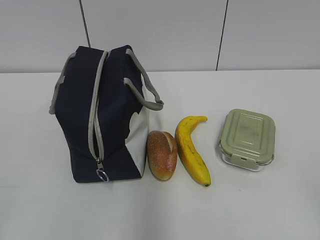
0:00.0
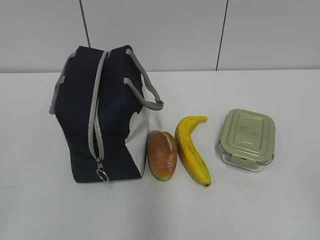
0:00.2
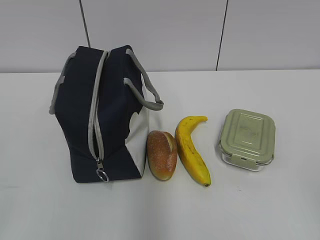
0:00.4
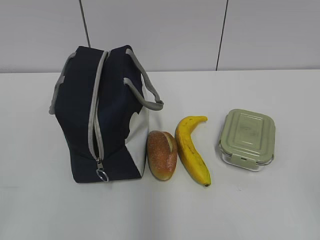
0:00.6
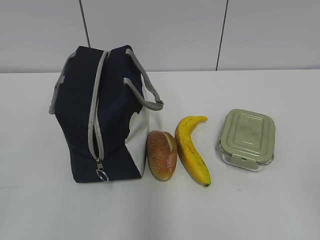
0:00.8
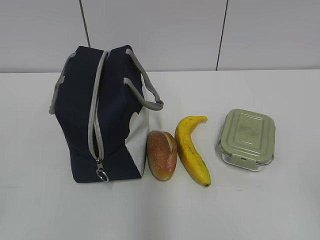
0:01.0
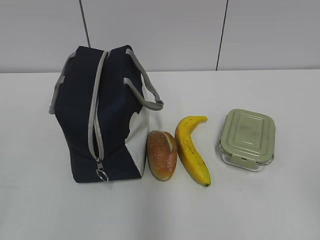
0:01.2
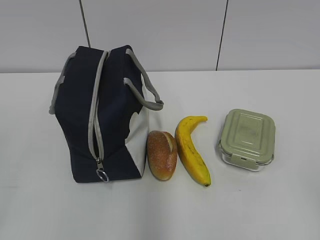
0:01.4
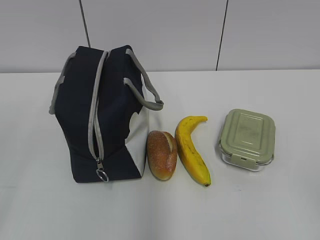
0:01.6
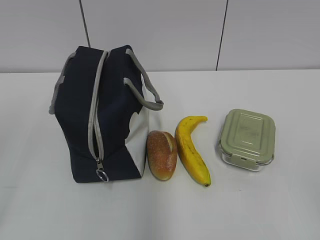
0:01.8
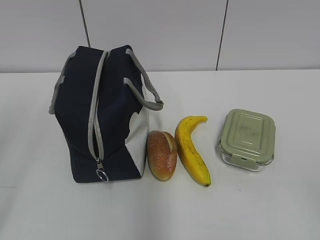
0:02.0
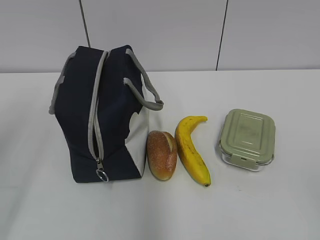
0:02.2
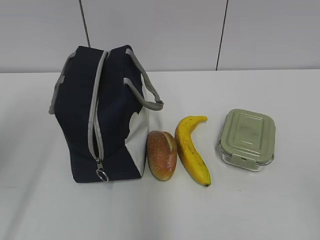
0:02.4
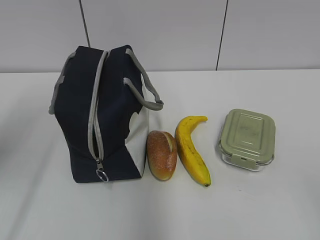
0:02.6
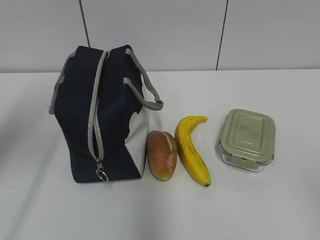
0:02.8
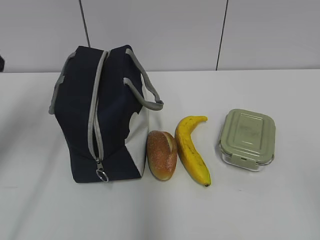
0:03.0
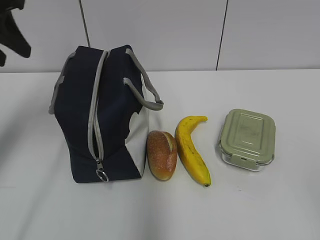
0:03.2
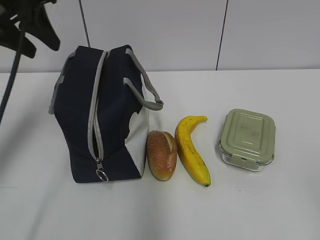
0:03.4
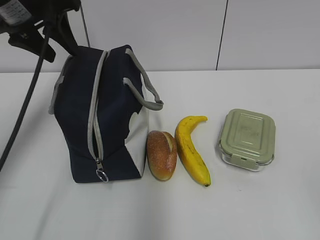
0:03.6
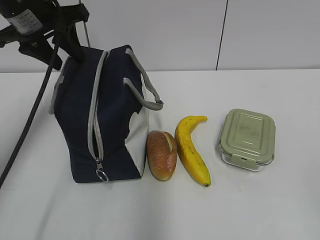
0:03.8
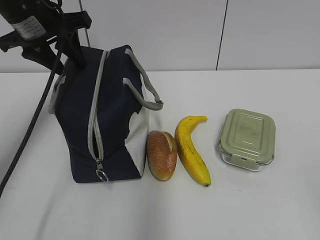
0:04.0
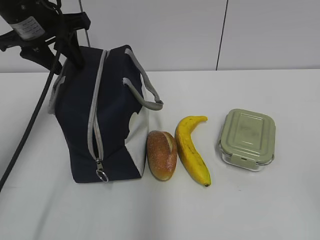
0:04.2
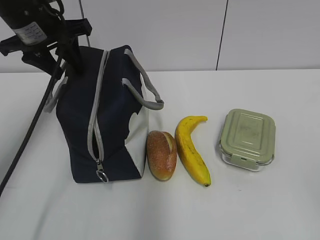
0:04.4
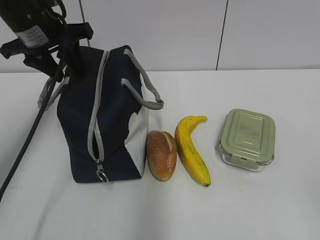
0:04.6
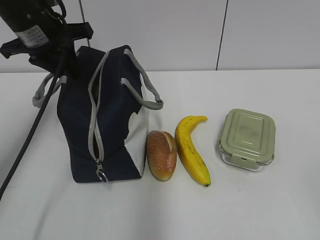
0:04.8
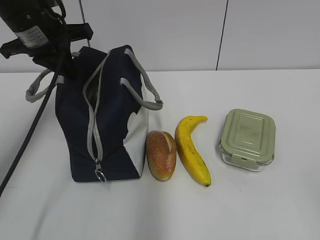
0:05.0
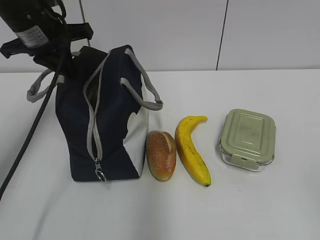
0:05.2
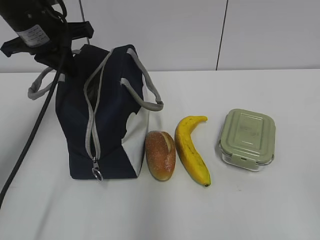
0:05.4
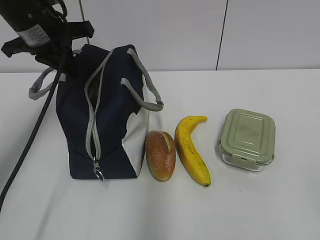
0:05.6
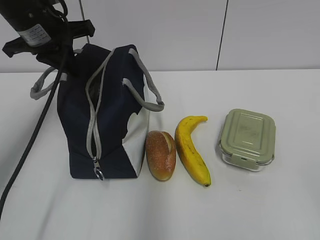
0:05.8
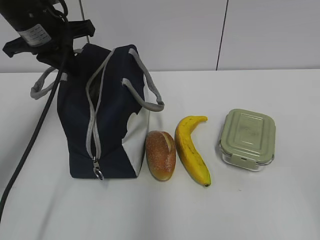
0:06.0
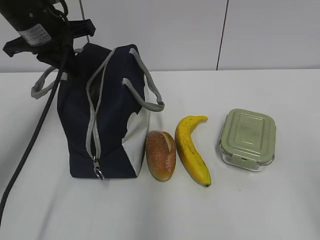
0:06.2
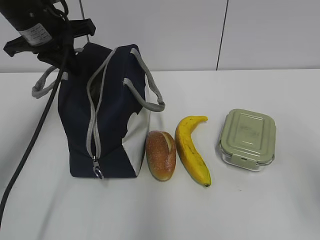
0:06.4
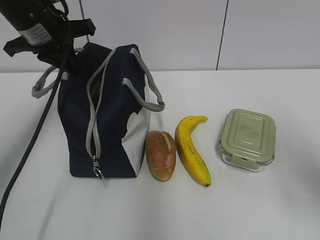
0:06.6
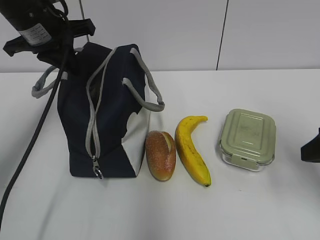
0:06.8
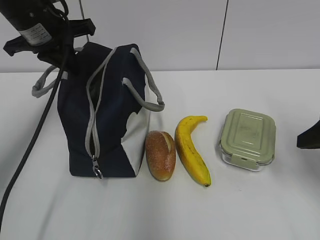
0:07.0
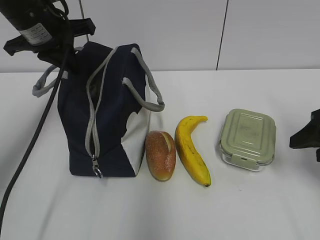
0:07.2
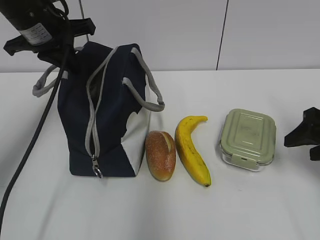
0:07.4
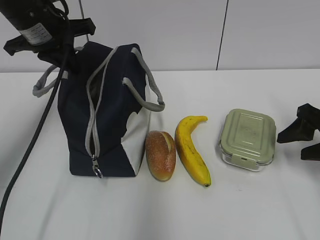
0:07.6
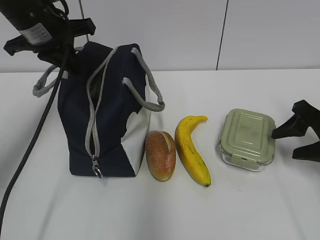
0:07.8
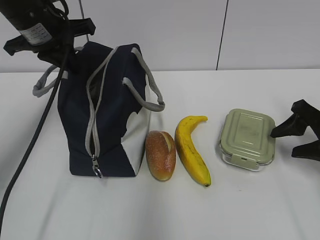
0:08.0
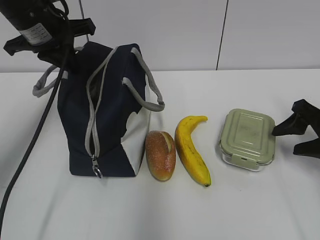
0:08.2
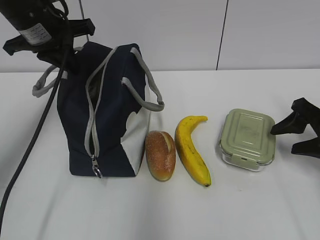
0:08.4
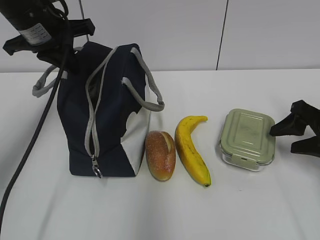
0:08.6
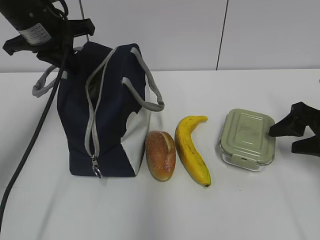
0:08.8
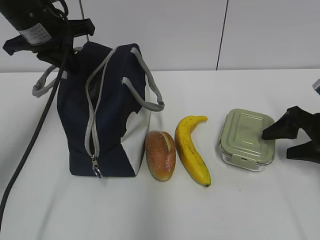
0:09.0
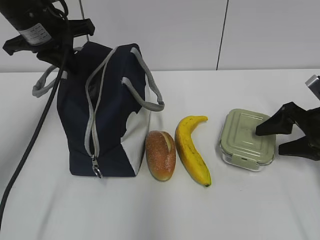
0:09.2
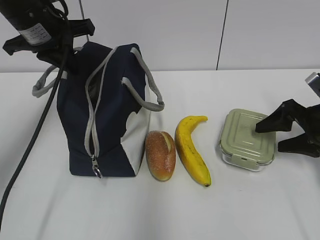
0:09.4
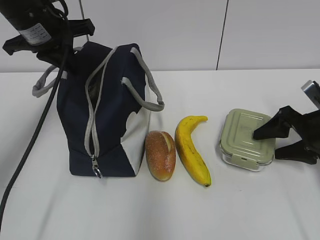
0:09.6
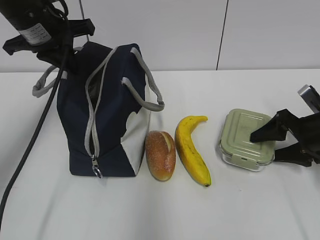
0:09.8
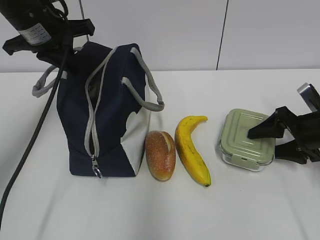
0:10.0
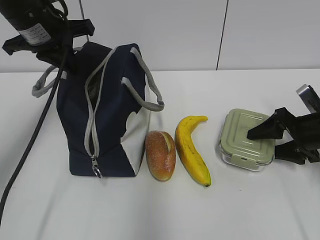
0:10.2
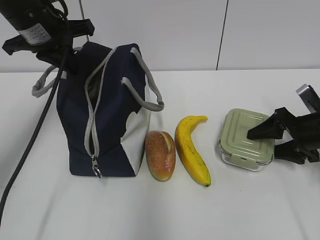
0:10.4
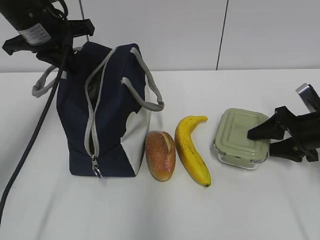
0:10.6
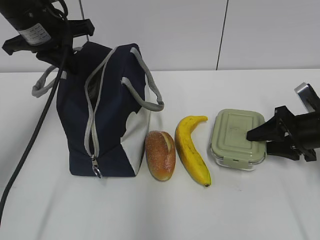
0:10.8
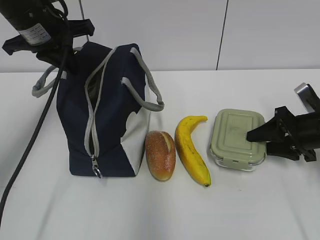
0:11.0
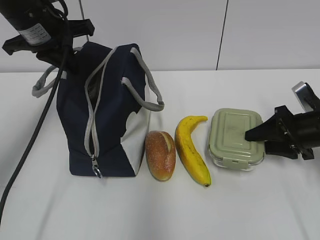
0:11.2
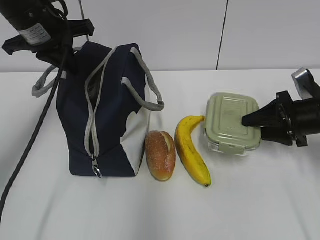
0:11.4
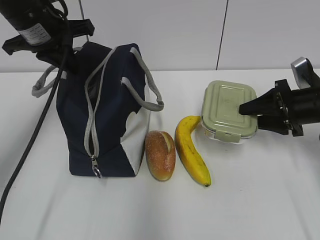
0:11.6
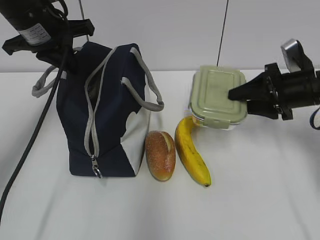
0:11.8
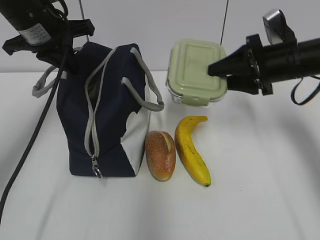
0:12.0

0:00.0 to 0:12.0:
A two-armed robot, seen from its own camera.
Step, 0:00.0 to 0:11.0: Grab the lunch box with your right hand.
0:01.6 to 0:03.0: The left gripper is displaced forward by some 25 cm.
0:03.0 to 0:04.4: The left gripper travels forward and to the right by roughly 15 cm.
0:04.4 to 0:06.0: The left gripper closes up.
0:06.0 to 0:07.6: The right gripper goes some 30 cm forward and downward.
0:07.6 to 0:09.0: There are only small adjustments of the grippers.
0:09.0 to 0:10.4: The grippers move only a little.
0:10.4 to 0:12.0: The right gripper shifts approximately 10 cm upward and to the left.

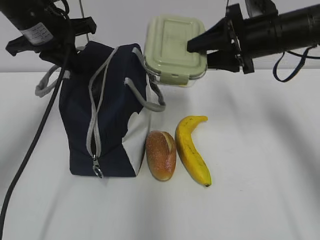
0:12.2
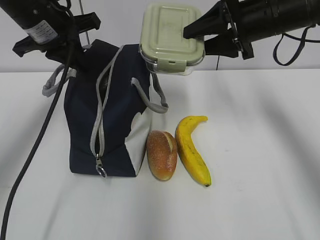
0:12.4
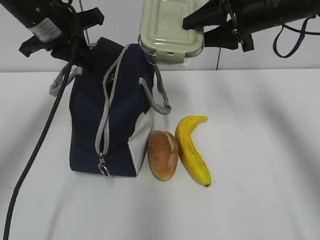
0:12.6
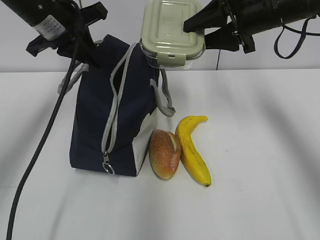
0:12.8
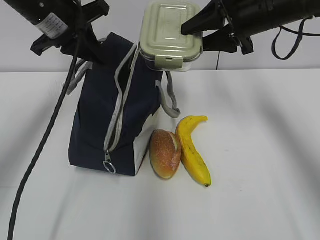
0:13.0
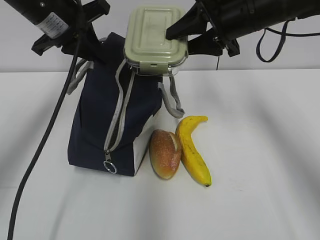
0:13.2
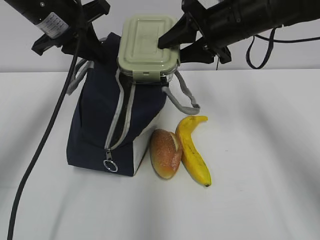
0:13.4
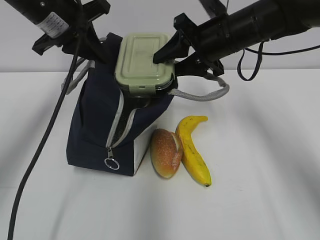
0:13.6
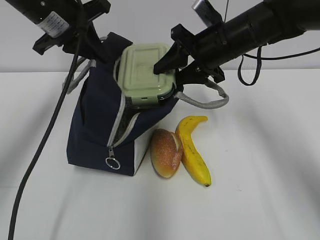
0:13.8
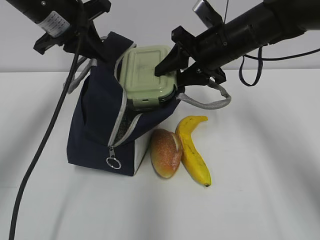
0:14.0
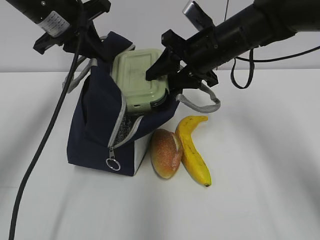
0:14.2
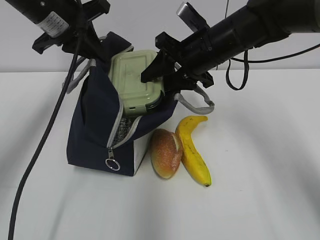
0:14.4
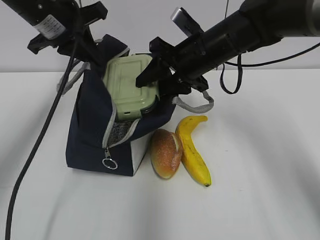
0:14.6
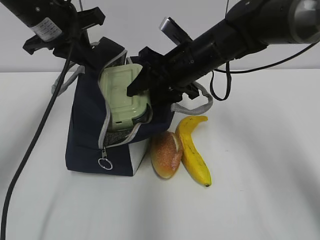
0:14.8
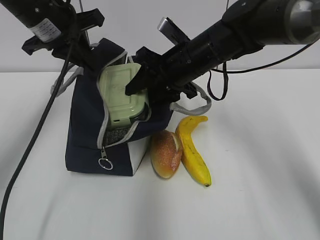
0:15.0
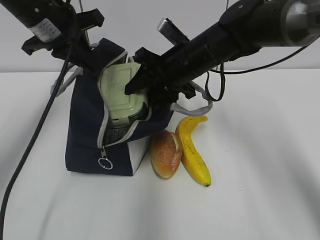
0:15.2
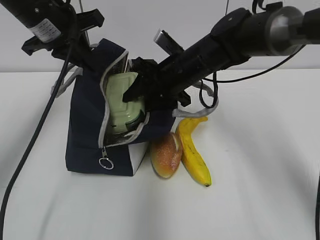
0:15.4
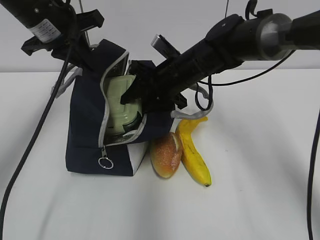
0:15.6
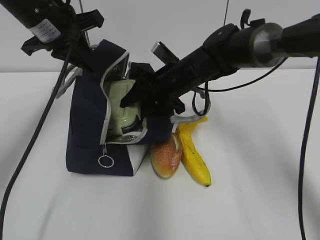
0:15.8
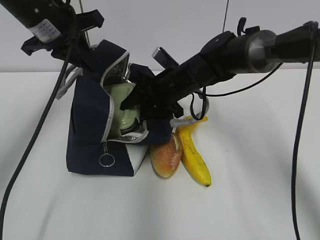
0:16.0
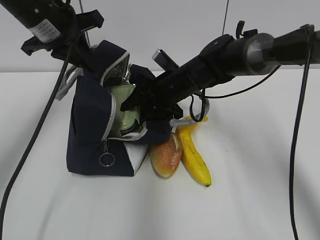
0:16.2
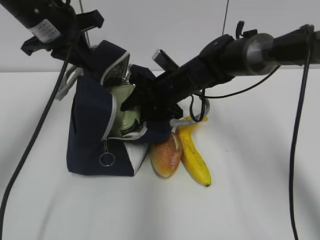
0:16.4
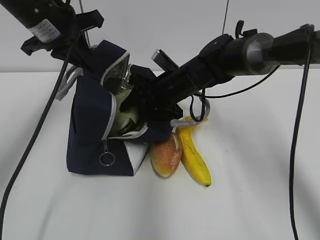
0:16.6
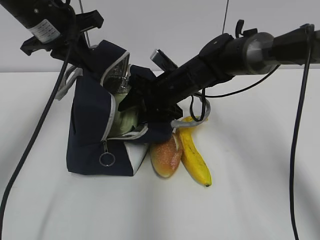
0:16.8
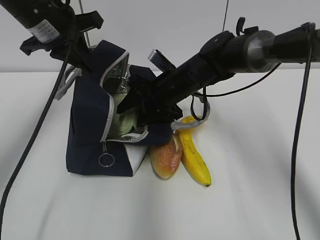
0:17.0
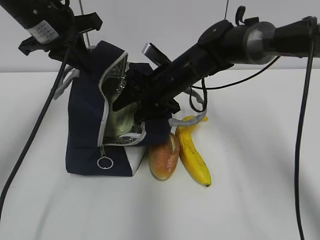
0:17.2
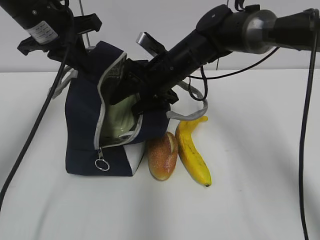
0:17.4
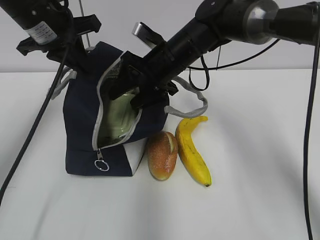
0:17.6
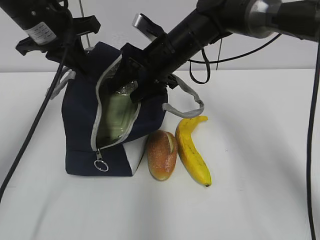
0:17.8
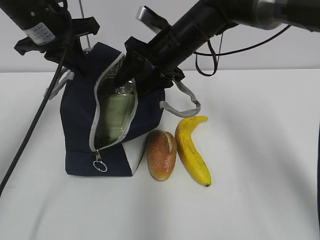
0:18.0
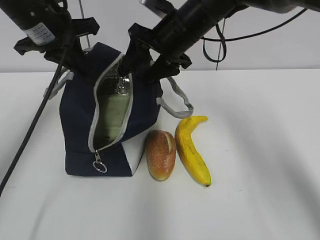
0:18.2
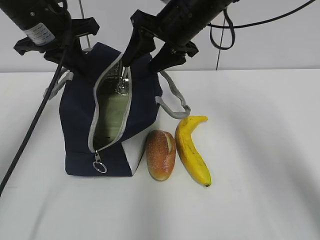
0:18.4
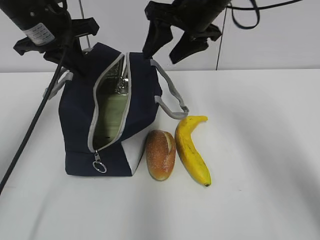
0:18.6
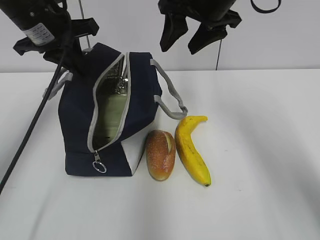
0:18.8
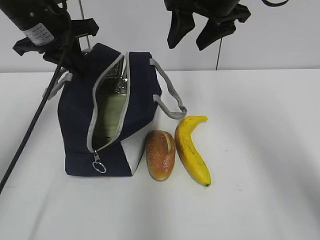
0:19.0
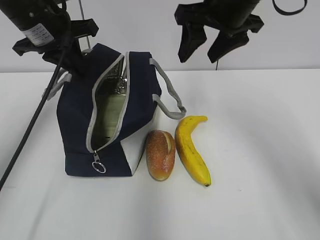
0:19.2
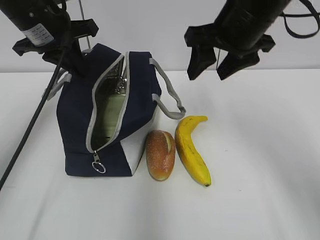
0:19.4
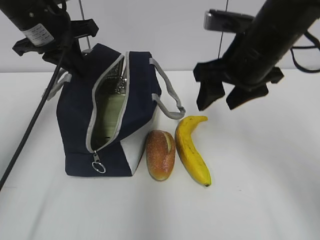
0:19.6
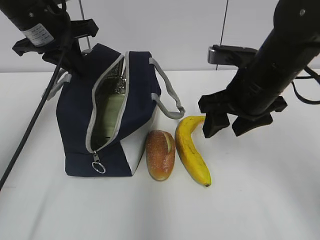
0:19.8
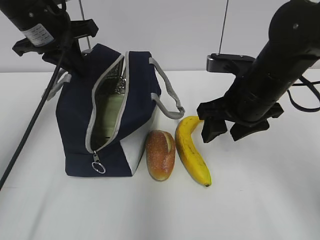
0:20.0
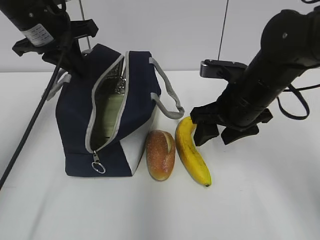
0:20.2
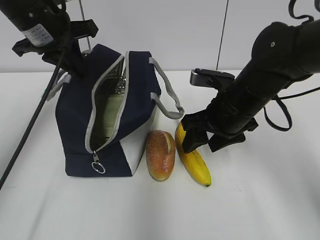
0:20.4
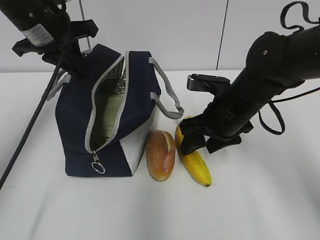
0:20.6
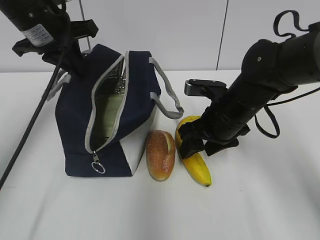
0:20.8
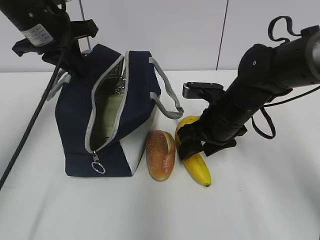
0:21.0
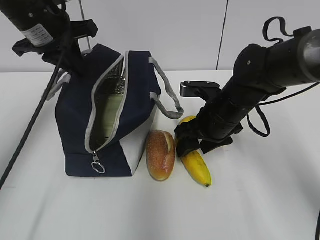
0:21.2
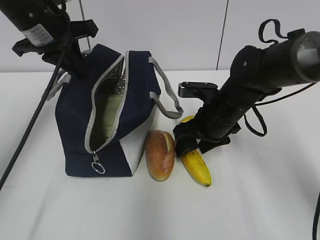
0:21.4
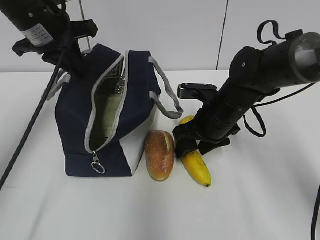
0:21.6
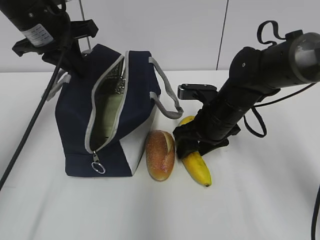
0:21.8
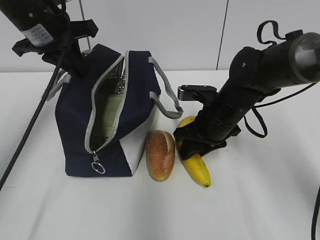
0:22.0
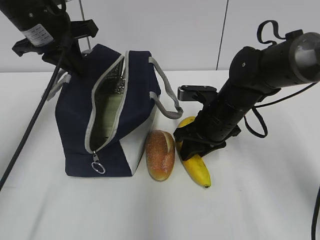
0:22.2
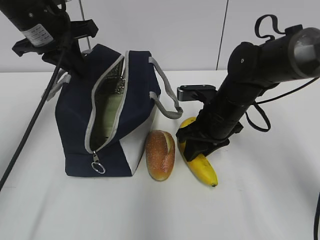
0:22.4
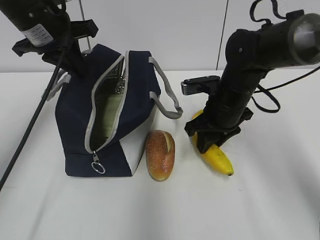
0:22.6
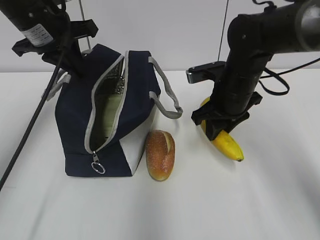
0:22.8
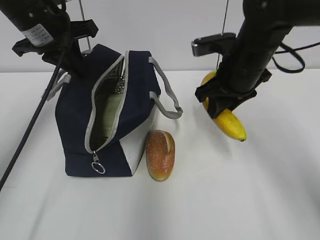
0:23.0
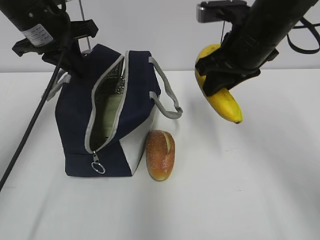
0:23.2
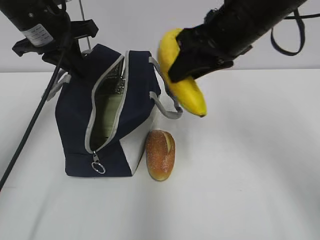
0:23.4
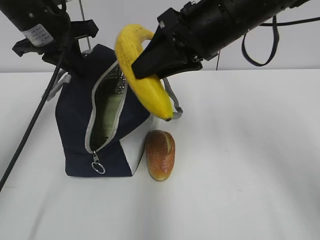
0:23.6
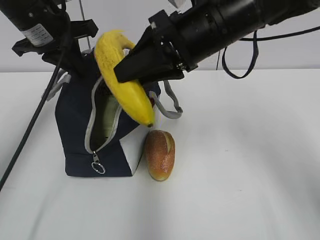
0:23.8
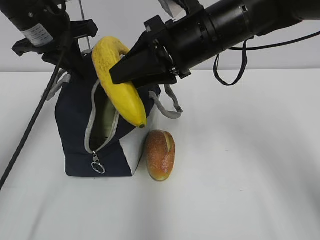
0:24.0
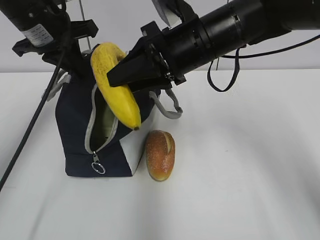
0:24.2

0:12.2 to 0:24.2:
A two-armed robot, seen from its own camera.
Step, 0:13.4 to 0:17.6: Place it into the bag with your right hand.
Step, 0:17.8 to 0:22.2: Grab the banana with your right hand.
0:12.2 to 0:13.8: The right gripper travels to the left by some 5 cm.
0:13.8 to 0:15.2: The right gripper shifts approximately 5 cm to the left.
0:15.2 to 0:16.6: The right gripper is displaced downward by some 5 cm.
0:16.6 to 0:18.2: The right gripper travels upward by roughly 10 cm.
0:18.2 to 0:19.8: The right gripper heads backward and to the right, covering some 15 cm, and travels upward and back again, roughly 10 cm each way.
0:19.8 to 0:21.2: The right gripper travels downward by some 10 cm.
0:21.2 to 0:22.6: The right gripper closes.
0:22.6 to 0:24.2: The right gripper shifts some 15 cm upward and to the left.
